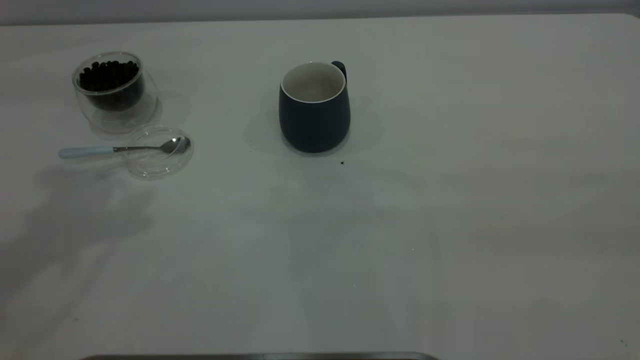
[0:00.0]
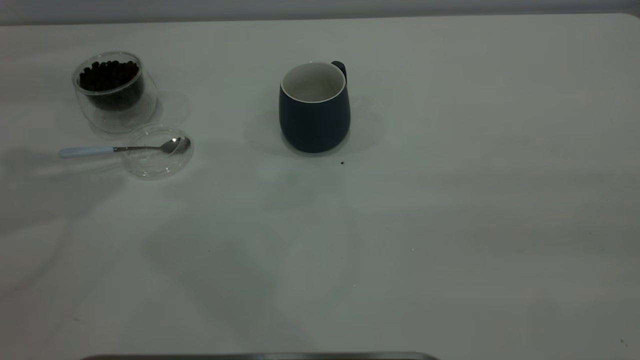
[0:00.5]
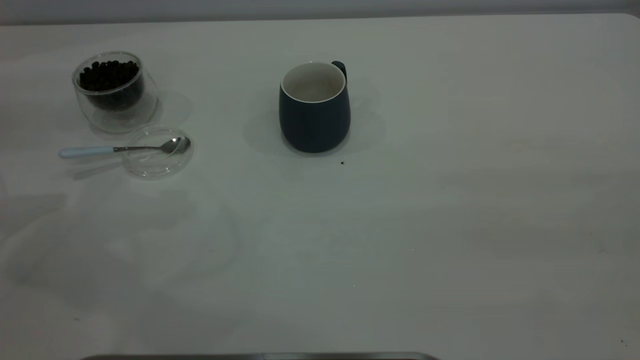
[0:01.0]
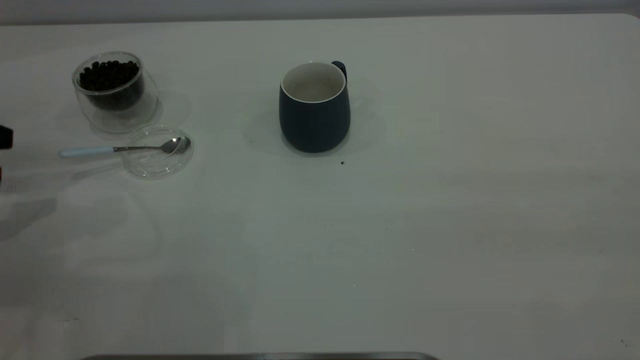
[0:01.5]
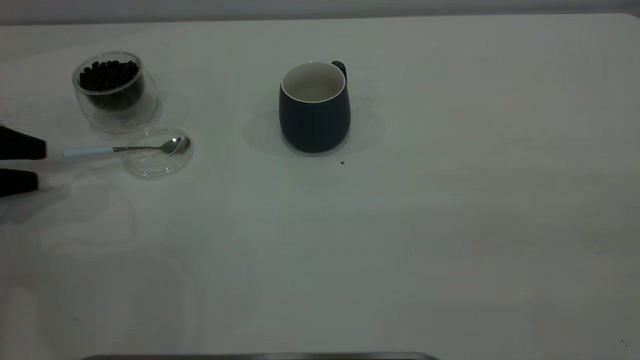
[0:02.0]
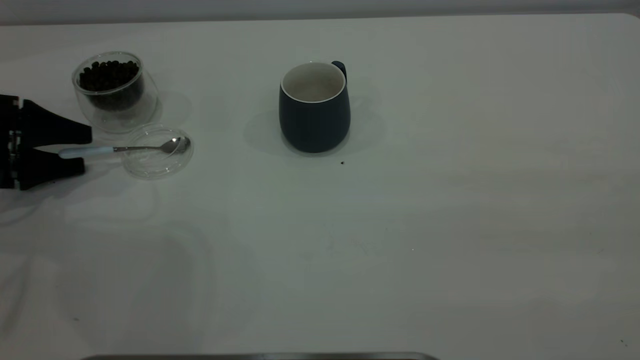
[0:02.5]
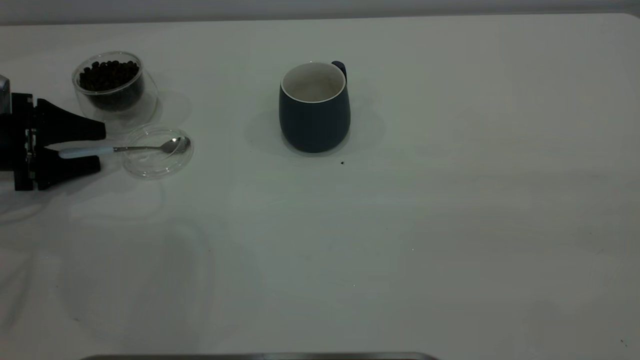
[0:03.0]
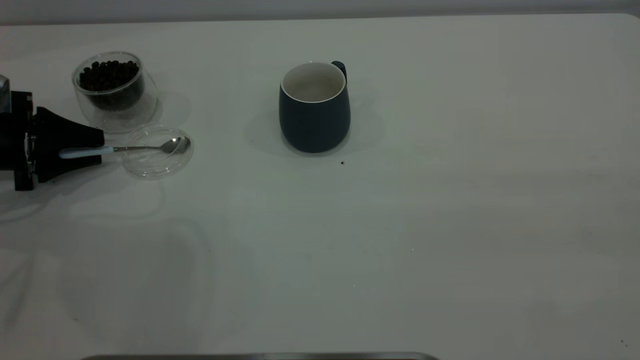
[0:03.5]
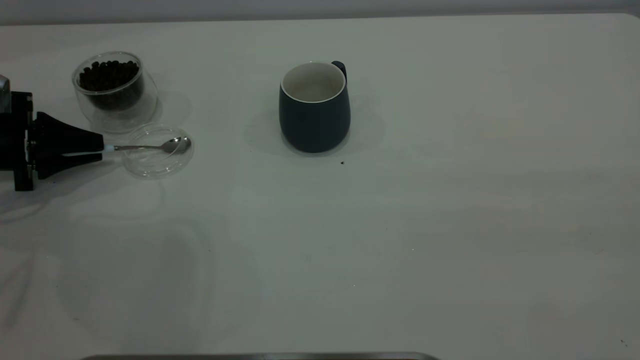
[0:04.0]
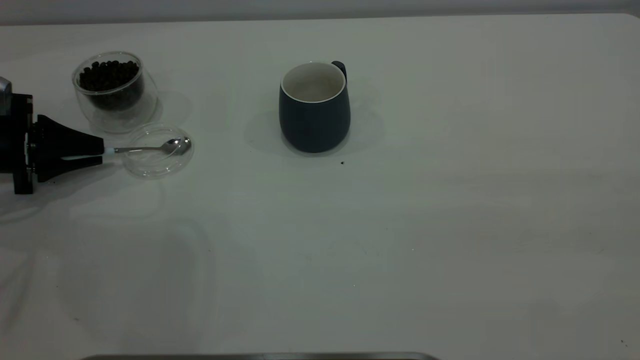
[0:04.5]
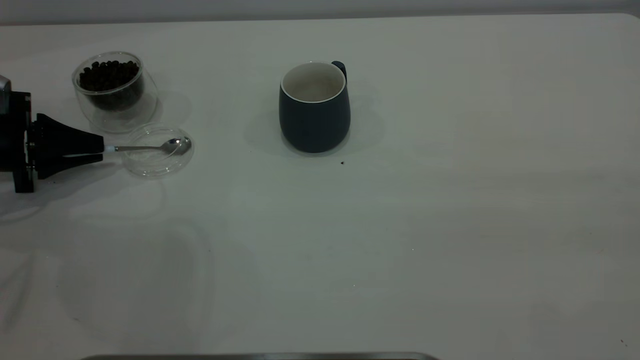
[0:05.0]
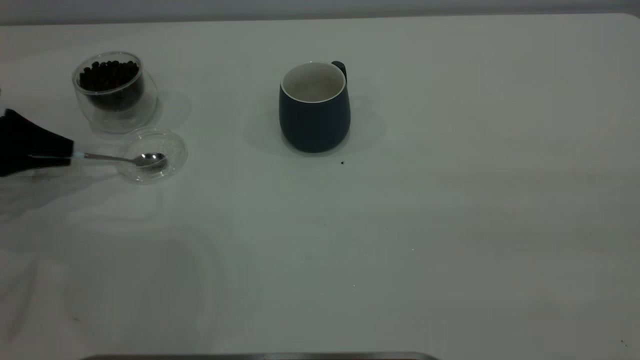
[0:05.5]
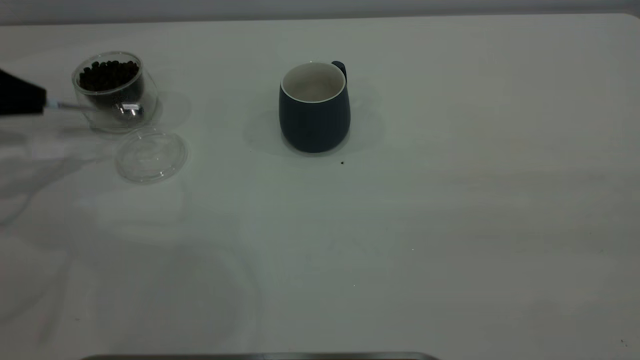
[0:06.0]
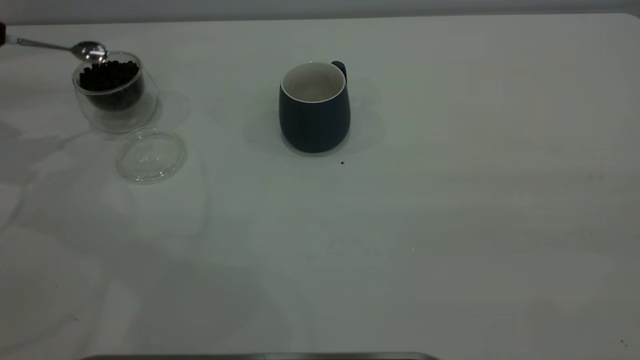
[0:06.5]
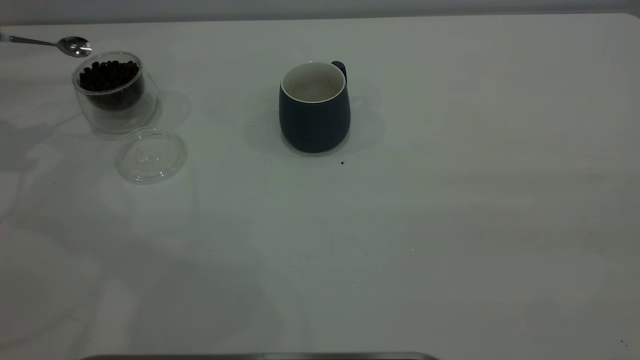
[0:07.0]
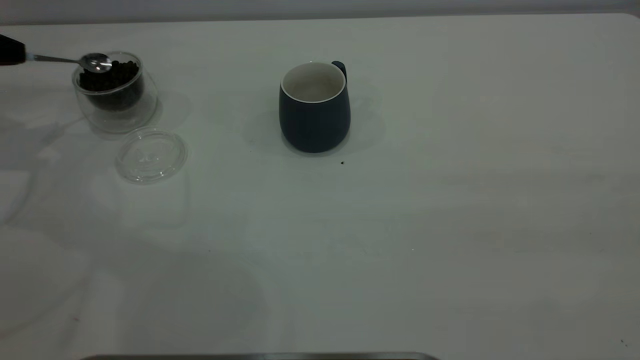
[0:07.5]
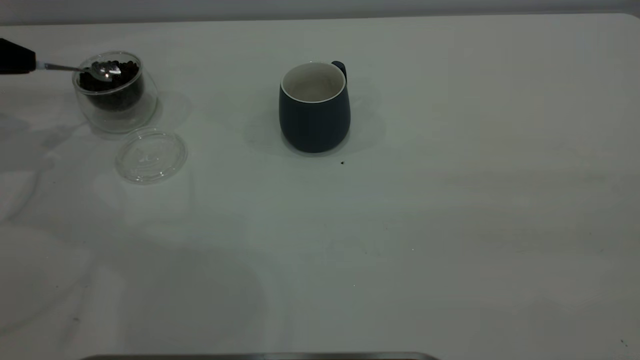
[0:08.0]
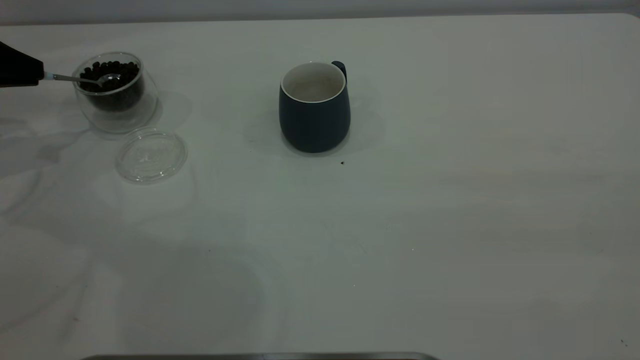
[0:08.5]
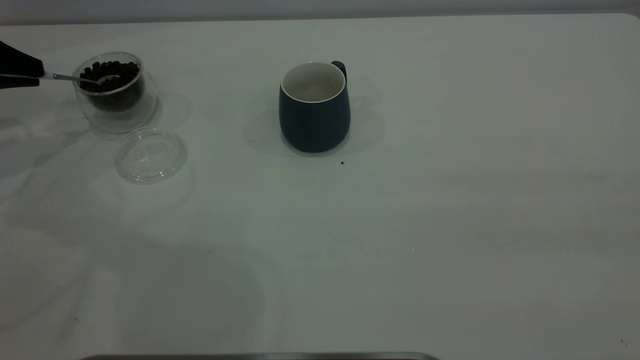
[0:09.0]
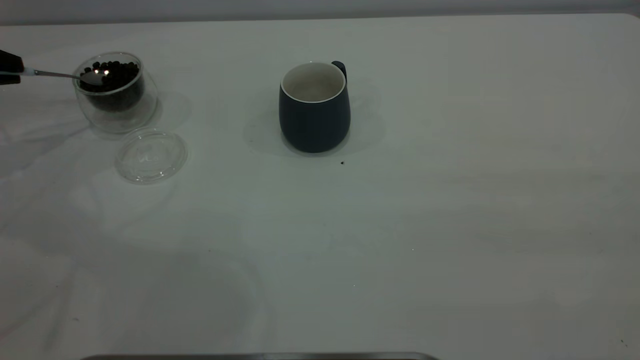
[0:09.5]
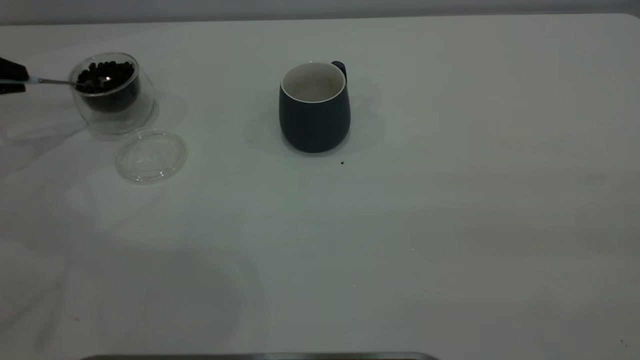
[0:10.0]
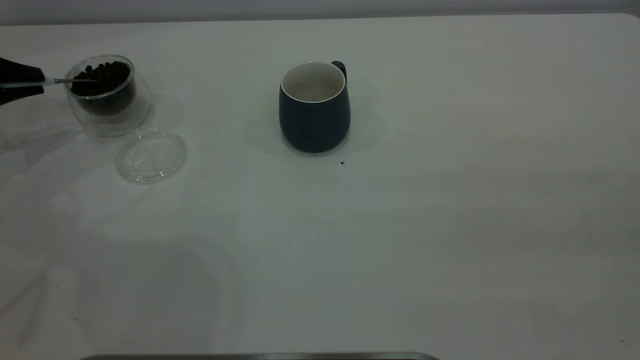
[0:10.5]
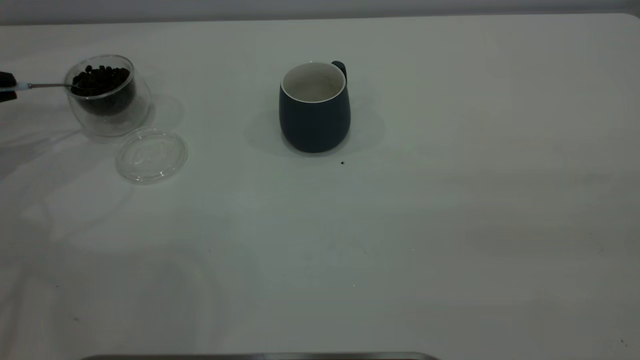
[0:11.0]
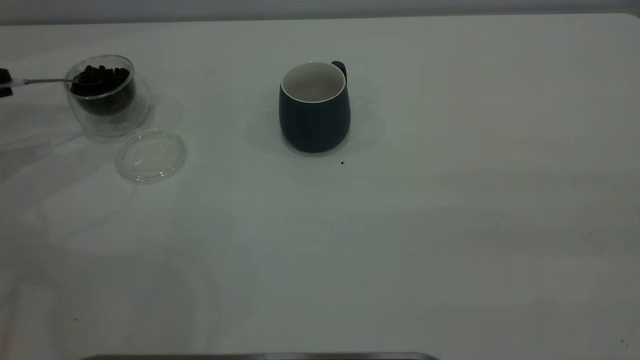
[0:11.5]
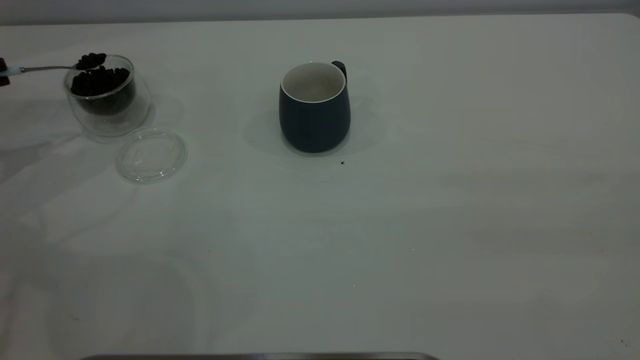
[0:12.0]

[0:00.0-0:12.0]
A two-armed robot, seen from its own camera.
Task of the whole recording: the right gripper place the grey cup in the center of the table, the left gripper take the blue spoon from the cup lid and scoop out the coffee beans from the coffee cup and put them into the grey cup, the left gripper put the spoon back into the cup lid.
Step, 0:00.0 to 0:06.0: Pick up the spoon.
0:00.0 to 0:02.0: The left gripper shifts roughly 35 cm downward and to the left.
0:02.0 to 0:04.0: The left gripper ends up approximately 5 cm from where it was, and closes.
0:04.0 to 0:06.0: The left gripper goes about 10 cm upward.
0:10.0 to 0:12.0: The grippers move only a little.

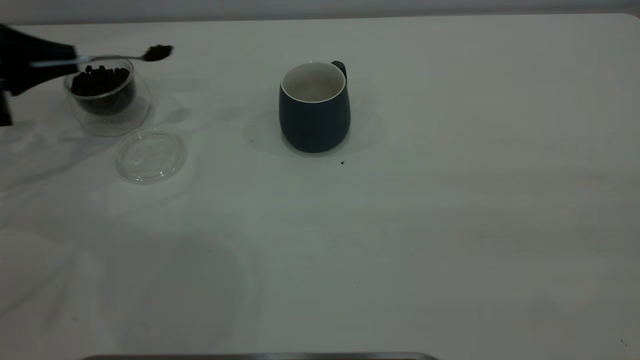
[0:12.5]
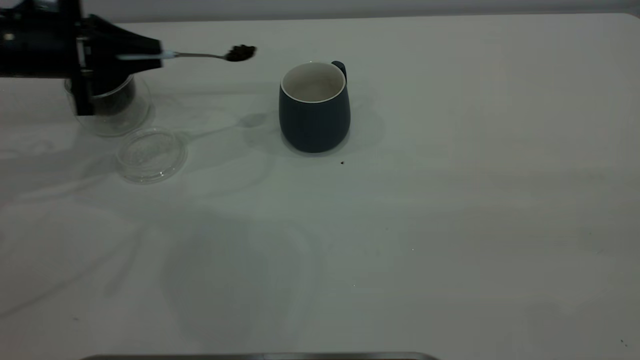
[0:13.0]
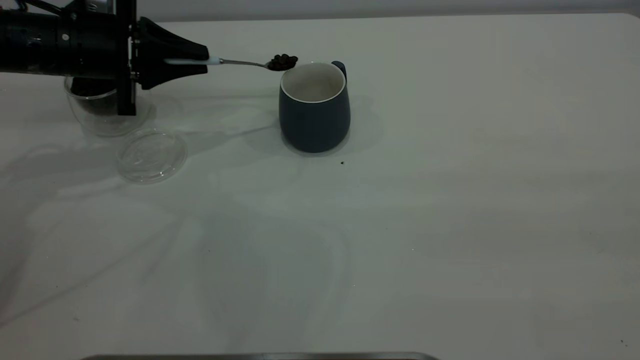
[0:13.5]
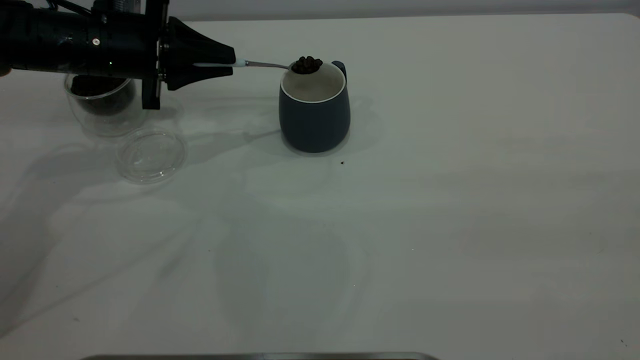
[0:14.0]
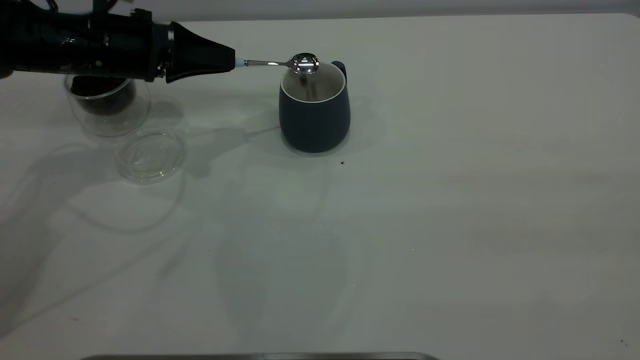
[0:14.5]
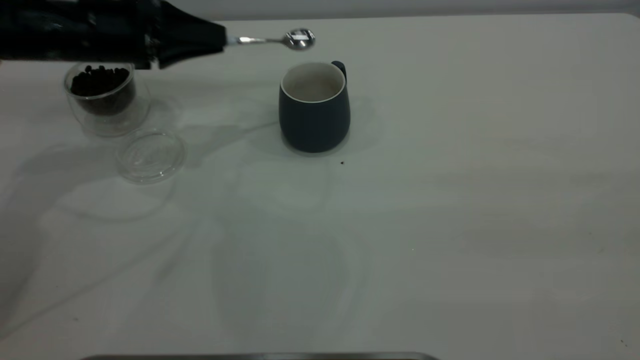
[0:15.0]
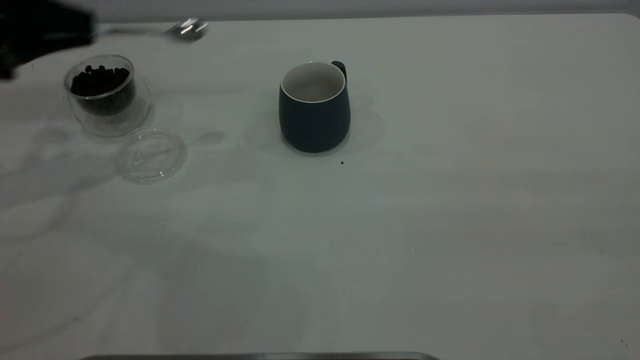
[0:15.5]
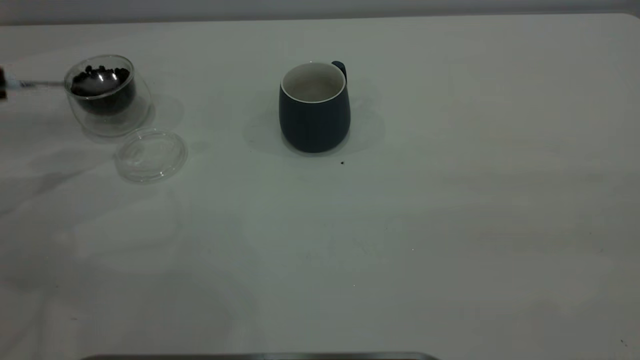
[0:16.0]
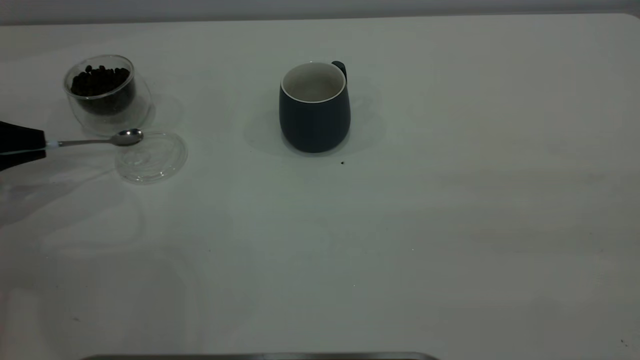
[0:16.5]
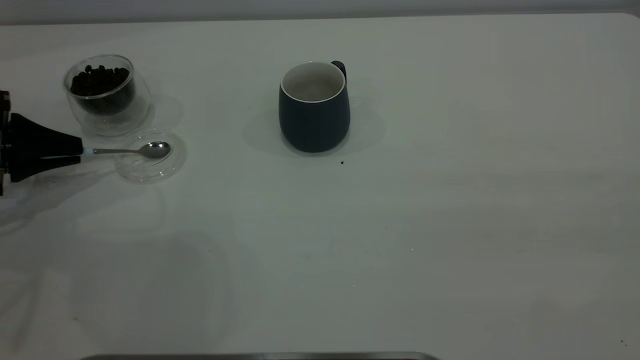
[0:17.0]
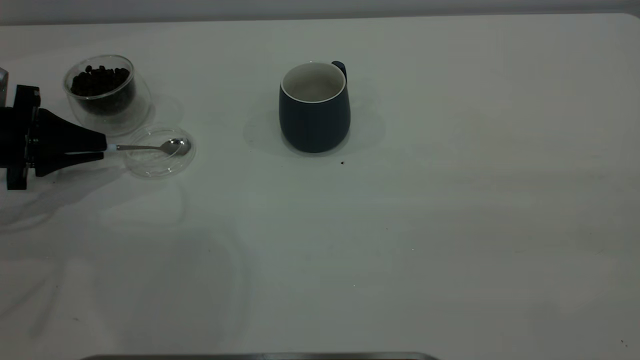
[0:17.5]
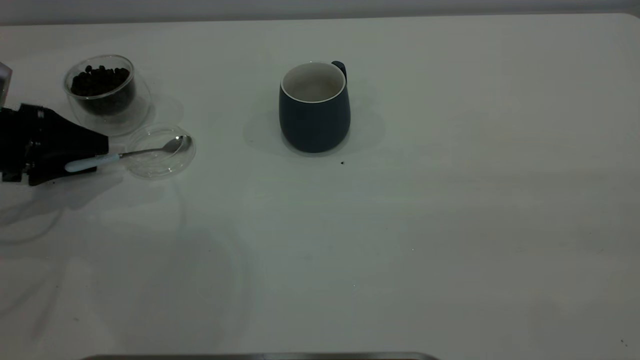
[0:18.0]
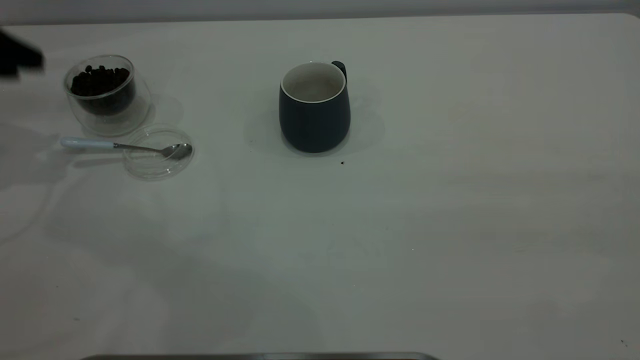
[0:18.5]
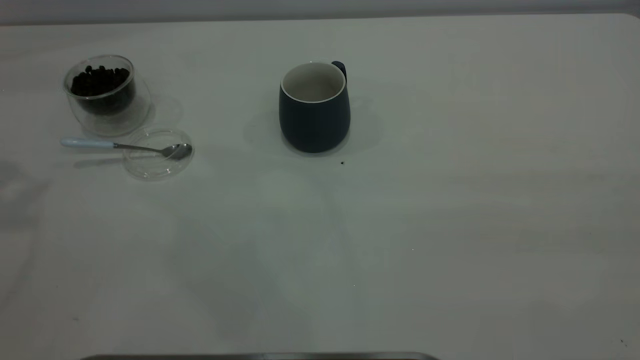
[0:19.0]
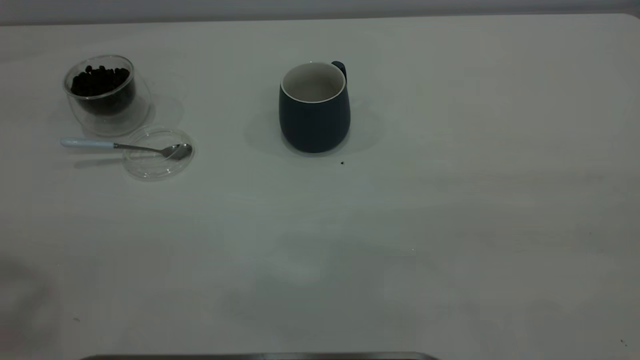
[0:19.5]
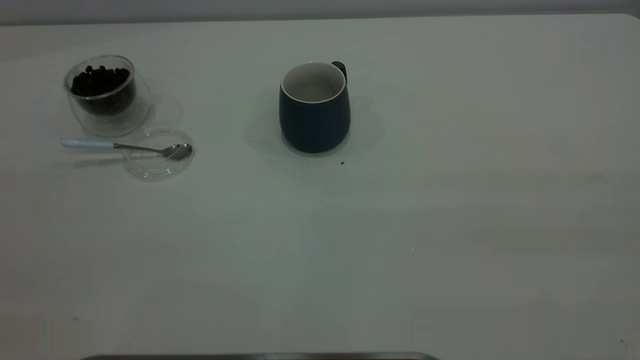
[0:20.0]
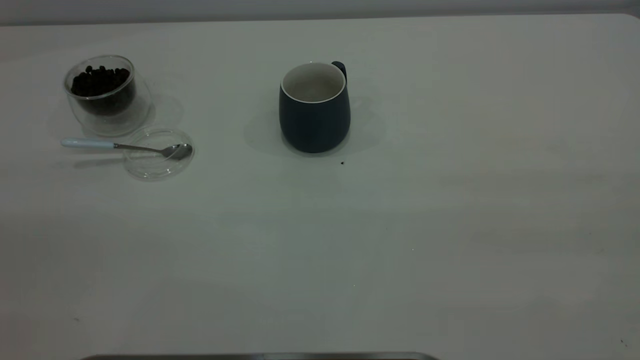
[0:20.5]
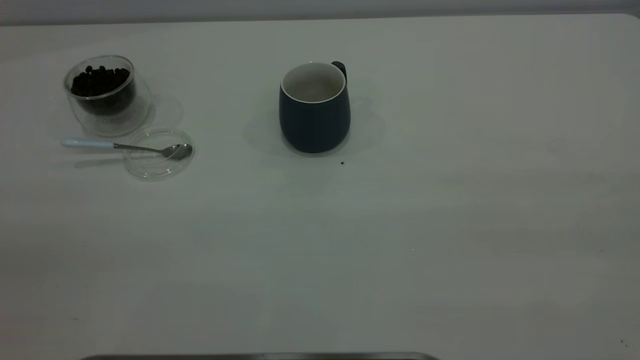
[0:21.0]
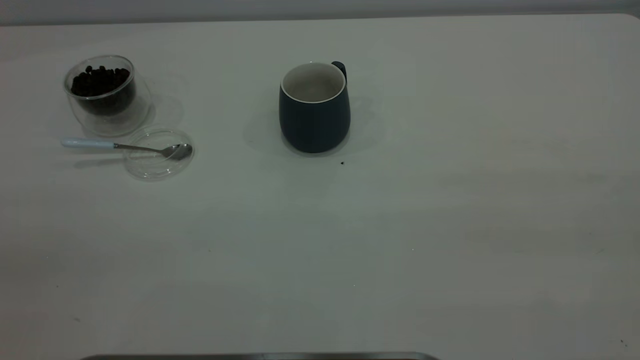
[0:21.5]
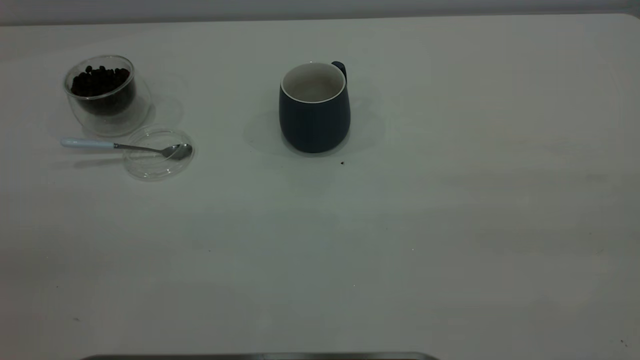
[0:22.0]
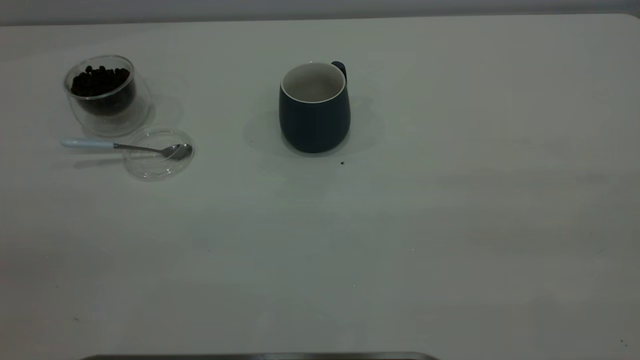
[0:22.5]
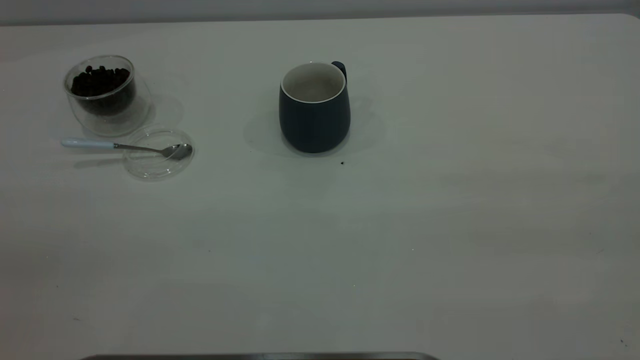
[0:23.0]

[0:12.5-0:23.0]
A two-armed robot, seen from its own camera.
Task of the whole recording: the right gripper place the grey cup in the center of the table, the left gripper take the blue spoon from the cup lid and scoop out the coffee beans from the coffee cup and put them into the grey cup, the left gripper put the spoon back into the cup lid.
Step, 0:12.5 to 0:15.0: Scoop a spoonful of beans into the cup.
Step, 0:15.5 to 0:18.5: Place the spoon back in its original place.
0:12.5 to 0:14.5: The left gripper is displaced to the right by some 15 cm.
0:14.5 to 0:16.5: The left gripper travels to the left and backward by some 20 cm.
0:16.5 to 0:19.0: The left gripper moves upward, approximately 30 cm, and opens.
0:21.0 to 0:23.0: The two grippers keep their place.
